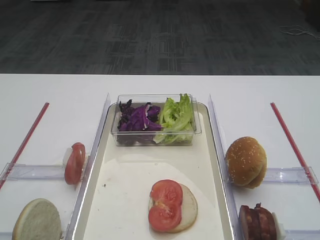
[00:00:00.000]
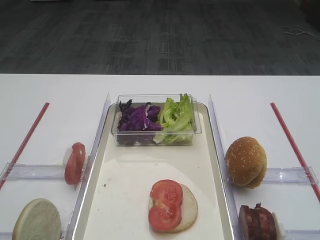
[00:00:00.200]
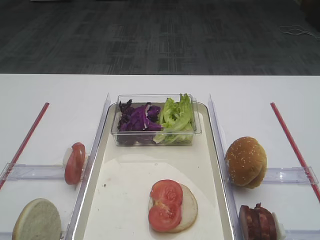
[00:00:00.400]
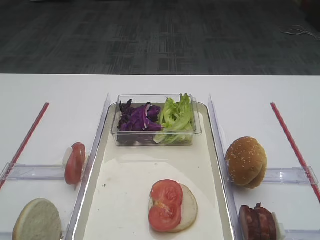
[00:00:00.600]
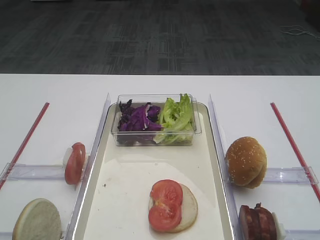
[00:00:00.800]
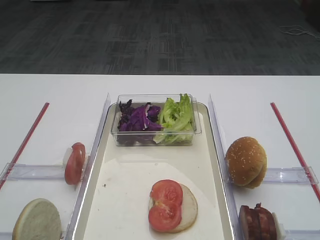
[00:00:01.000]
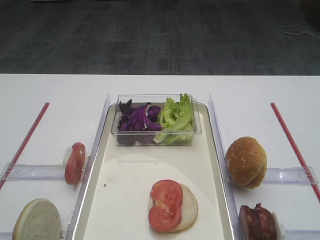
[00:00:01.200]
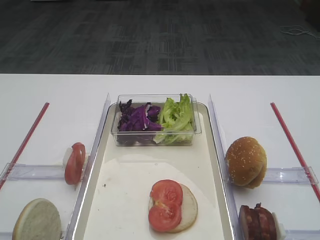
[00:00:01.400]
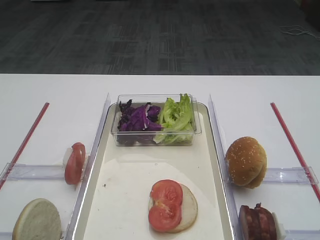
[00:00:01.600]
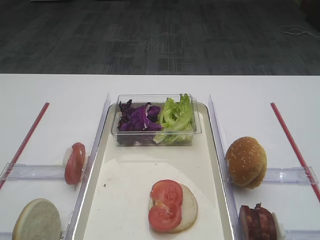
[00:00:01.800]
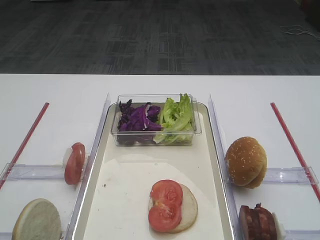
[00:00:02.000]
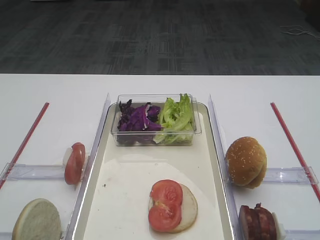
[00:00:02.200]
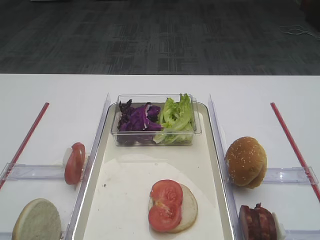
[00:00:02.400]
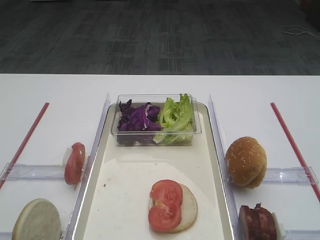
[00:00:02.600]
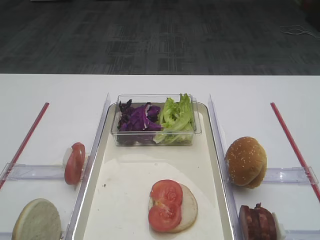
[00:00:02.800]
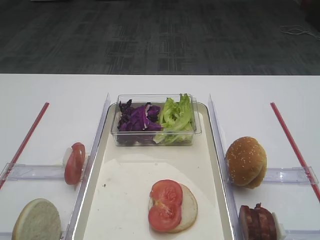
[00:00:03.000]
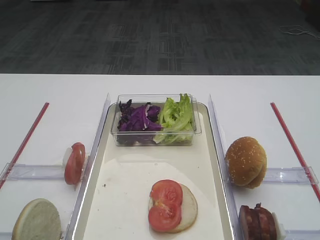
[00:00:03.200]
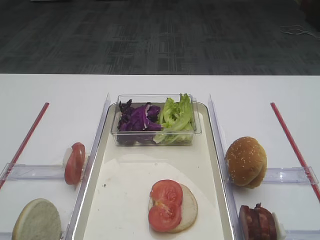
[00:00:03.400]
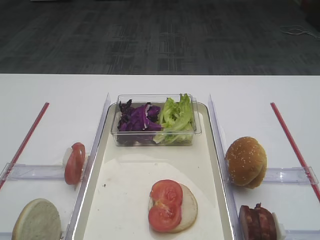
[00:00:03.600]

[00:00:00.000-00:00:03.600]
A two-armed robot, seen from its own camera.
00:00:00.000 to 00:00:03.600: Both grippers stay about where they are.

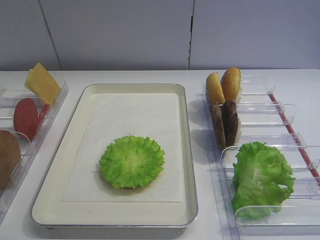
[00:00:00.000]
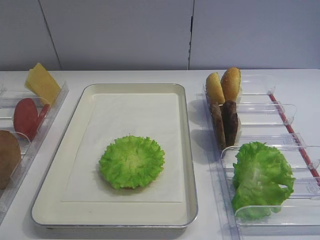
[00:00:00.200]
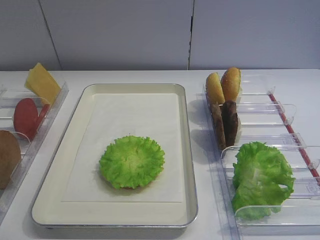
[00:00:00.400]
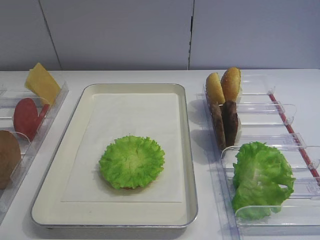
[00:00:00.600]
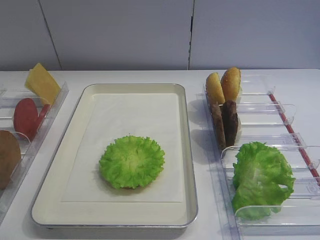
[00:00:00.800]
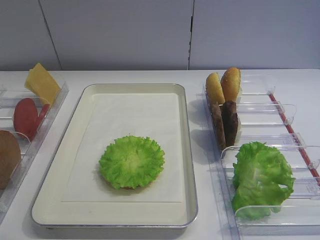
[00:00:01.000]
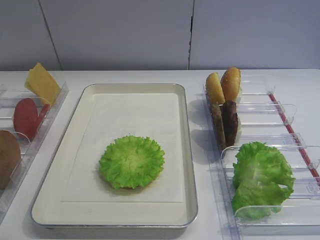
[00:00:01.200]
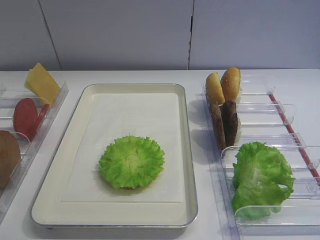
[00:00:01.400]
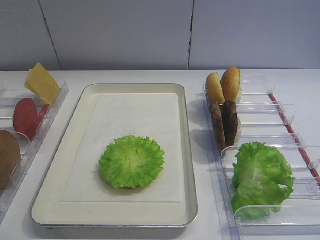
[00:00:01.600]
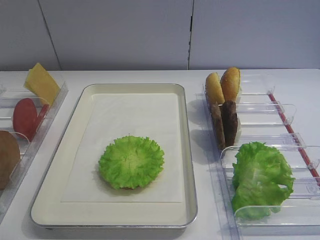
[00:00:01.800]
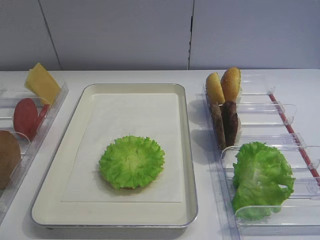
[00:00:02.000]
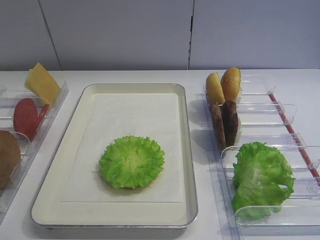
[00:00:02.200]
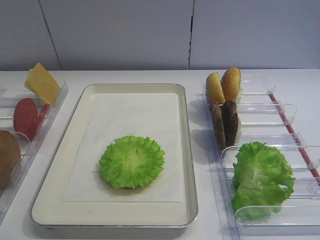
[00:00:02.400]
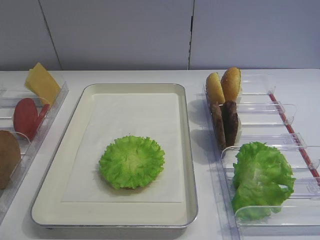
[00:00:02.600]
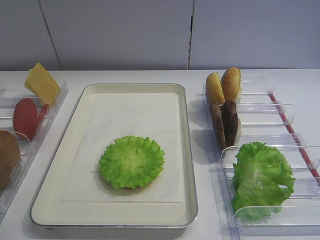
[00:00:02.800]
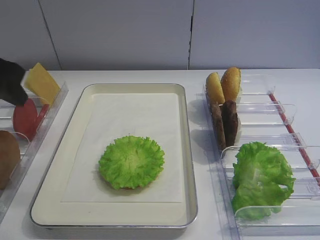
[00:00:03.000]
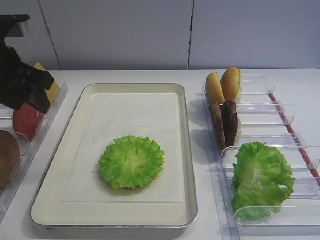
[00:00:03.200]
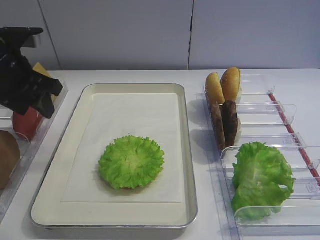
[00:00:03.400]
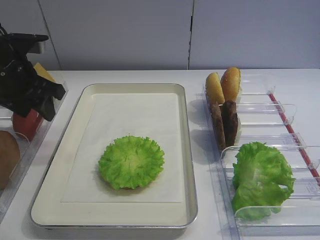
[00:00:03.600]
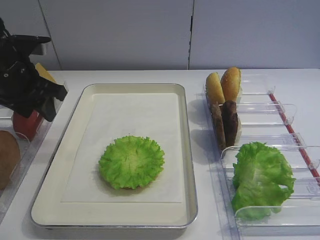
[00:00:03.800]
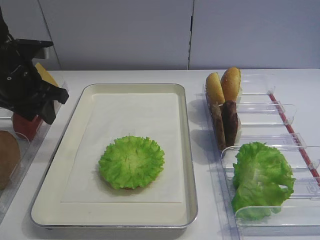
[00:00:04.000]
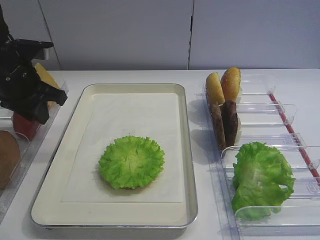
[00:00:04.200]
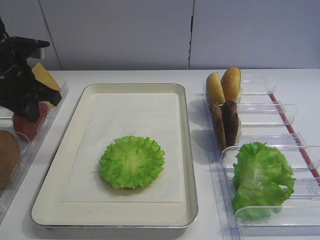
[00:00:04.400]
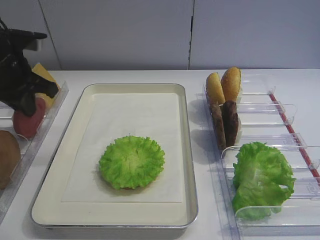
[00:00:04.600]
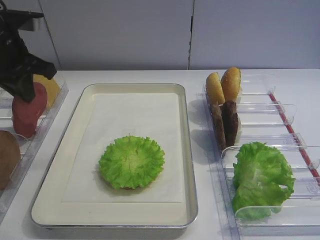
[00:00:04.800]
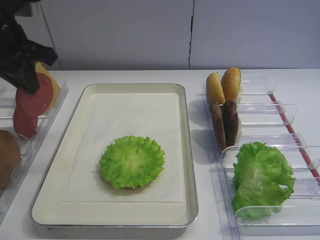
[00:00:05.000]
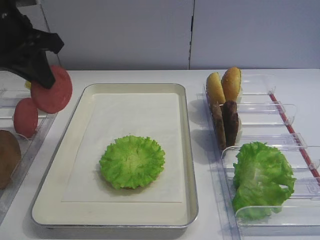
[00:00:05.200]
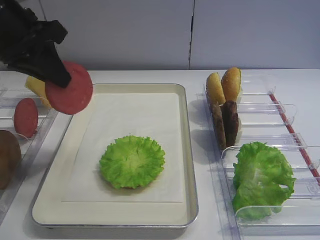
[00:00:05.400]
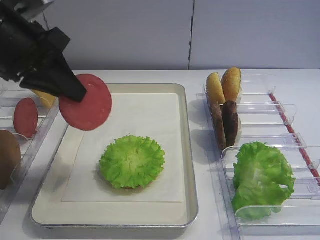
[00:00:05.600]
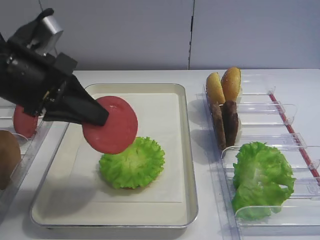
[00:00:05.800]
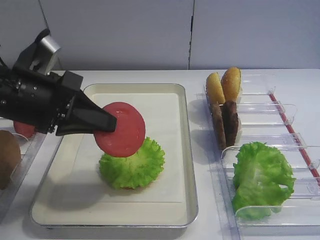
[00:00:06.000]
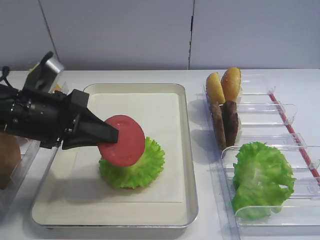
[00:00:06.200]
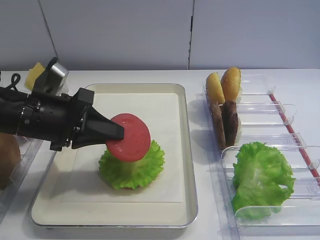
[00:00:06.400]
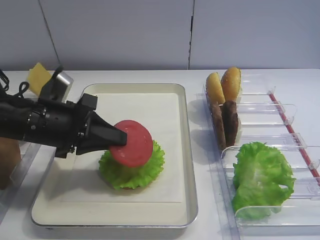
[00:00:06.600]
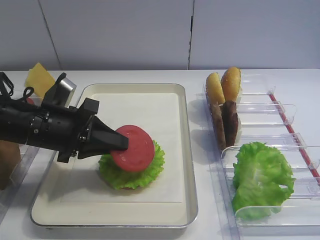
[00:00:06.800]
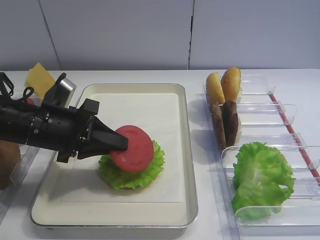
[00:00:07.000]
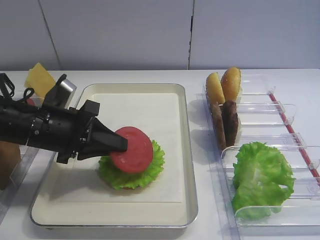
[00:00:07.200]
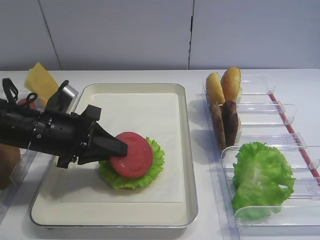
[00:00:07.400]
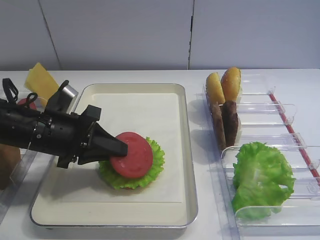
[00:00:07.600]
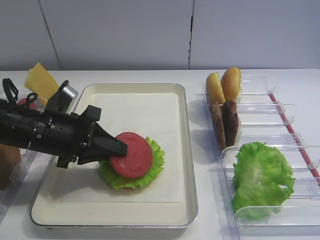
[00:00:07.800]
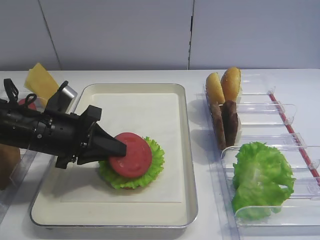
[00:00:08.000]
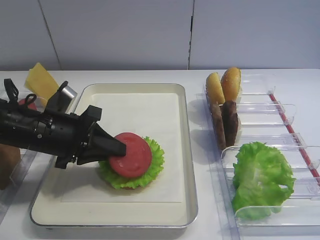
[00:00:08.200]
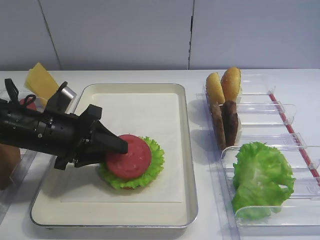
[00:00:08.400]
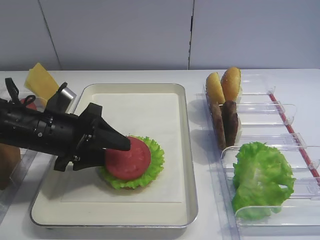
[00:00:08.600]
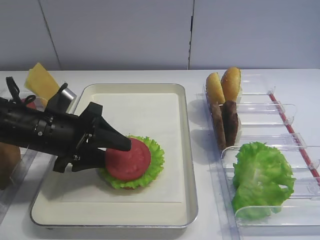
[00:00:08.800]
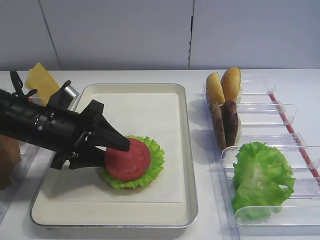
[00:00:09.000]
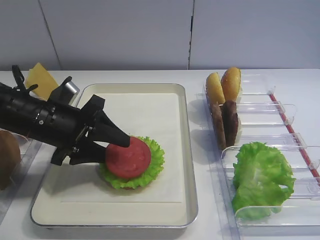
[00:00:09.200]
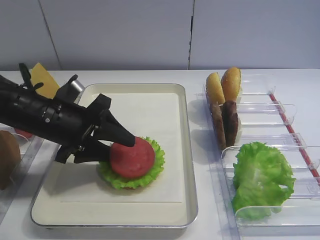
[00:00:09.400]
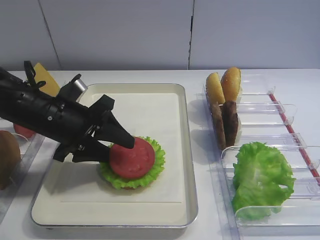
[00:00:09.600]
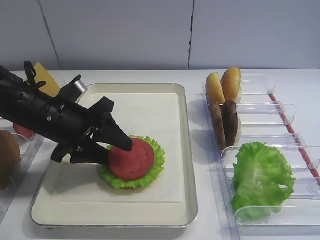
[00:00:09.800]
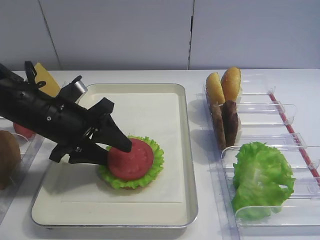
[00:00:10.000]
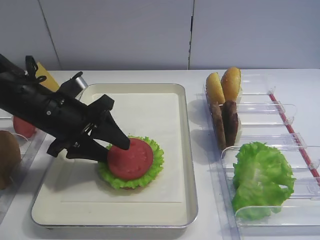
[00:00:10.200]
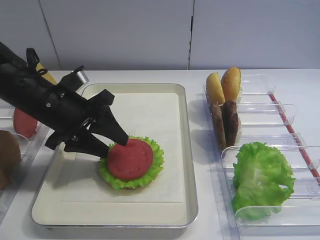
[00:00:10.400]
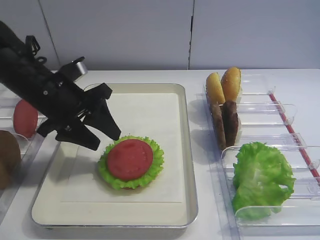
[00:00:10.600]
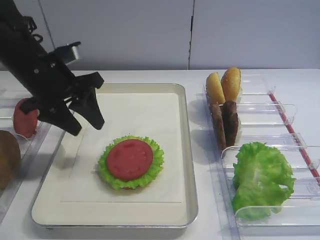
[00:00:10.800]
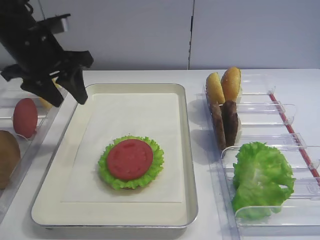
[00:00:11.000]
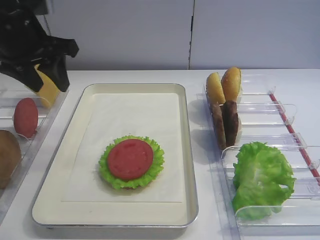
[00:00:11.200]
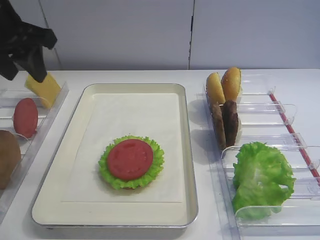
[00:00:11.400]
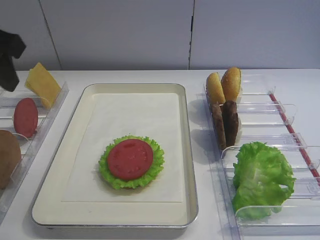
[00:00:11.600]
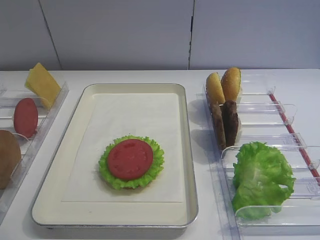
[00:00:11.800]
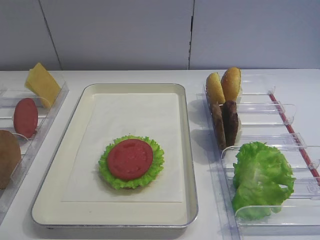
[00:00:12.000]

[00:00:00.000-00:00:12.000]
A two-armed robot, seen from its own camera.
Step, 00:00:00.000 to 00:00:04.800: Pick up the tomato slice with the left gripper.
Step, 00:00:05.000 to 00:00:10.400: Place the tomato slice on the lettuce leaf with the left gripper.
00:00:01.600 to 00:00:03.000: The left gripper is displaced forward by some 25 cm, and opens.
00:00:03.000 to 00:00:04.400: The left gripper is displaced forward and downward by approximately 10 cm, and closes up.
00:00:04.400 to 00:00:06.000: The left gripper shifts about 10 cm backward and to the right.
00:00:06.000 to 00:00:07.600: The left gripper travels downward by roughly 10 cm.
00:00:07.600 to 00:00:09.000: The left gripper opens its fingers.
00:00:09.000 to 00:00:10.400: The grippers stay close to where they were, moving slightly.
00:00:10.400 to 00:00:12.000: The left gripper goes about 25 cm backward, upward and to the left.

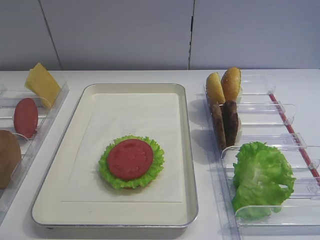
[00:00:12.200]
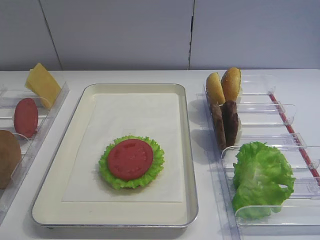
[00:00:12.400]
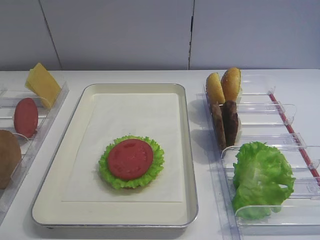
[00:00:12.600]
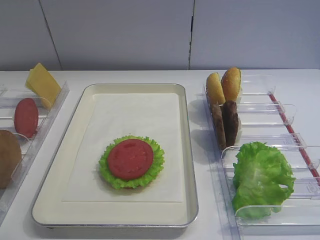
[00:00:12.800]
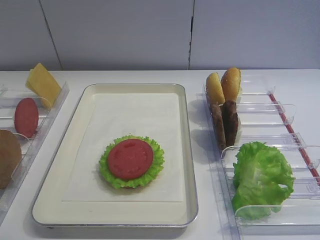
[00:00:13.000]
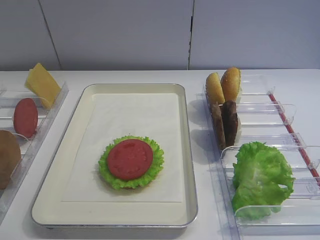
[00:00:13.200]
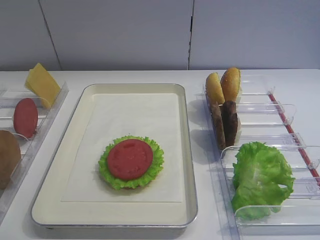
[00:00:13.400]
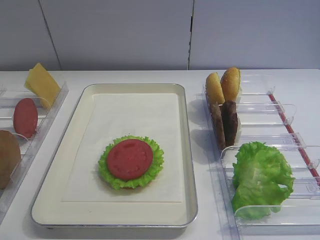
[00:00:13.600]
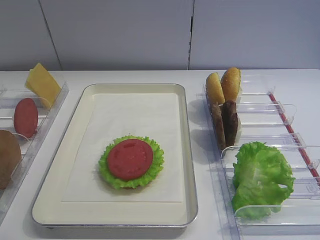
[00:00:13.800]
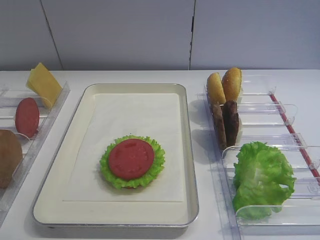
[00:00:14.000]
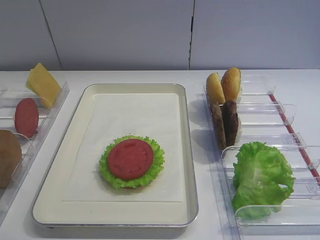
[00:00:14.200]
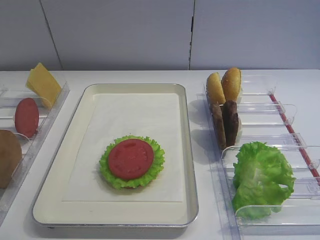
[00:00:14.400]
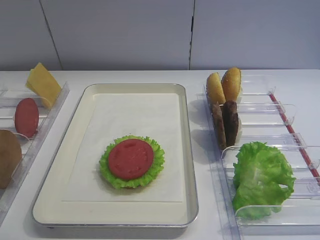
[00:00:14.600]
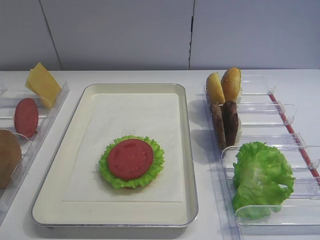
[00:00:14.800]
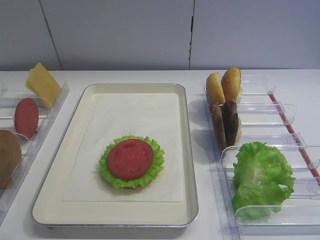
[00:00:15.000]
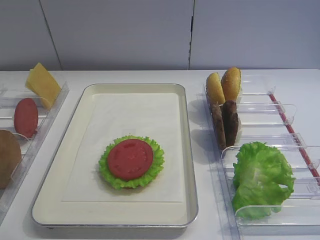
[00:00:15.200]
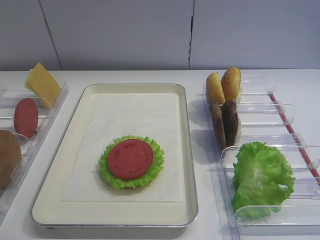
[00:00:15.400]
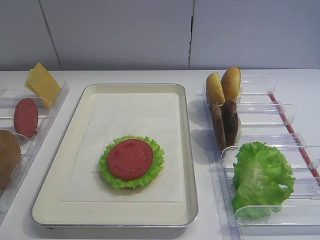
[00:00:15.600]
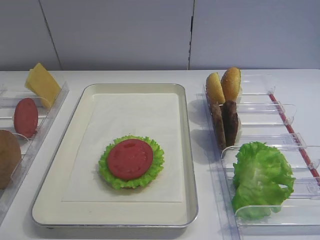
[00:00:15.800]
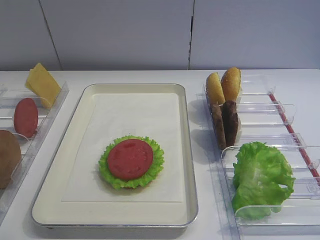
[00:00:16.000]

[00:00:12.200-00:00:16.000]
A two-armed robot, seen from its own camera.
00:00:14.800 to 00:00:16.000: The two grippers keep their place.
